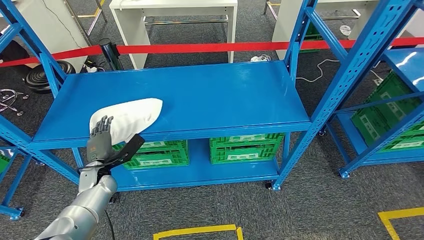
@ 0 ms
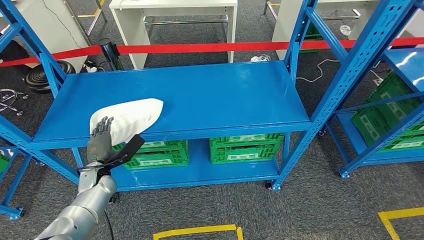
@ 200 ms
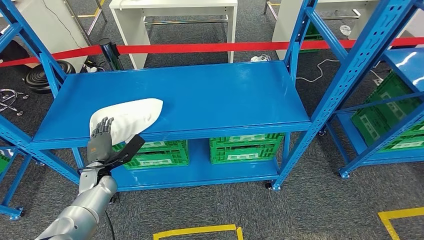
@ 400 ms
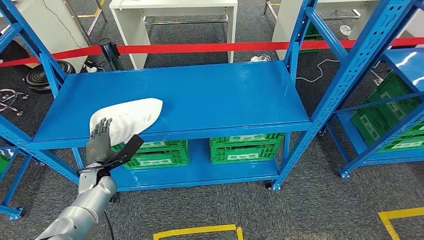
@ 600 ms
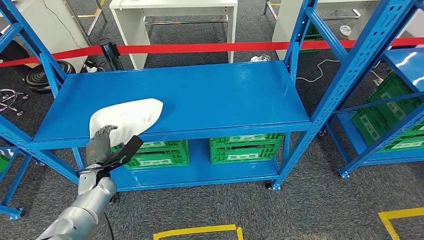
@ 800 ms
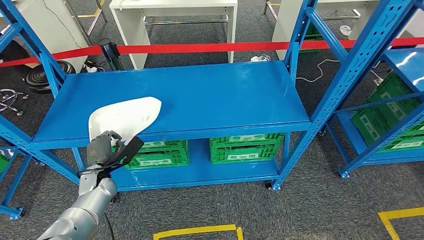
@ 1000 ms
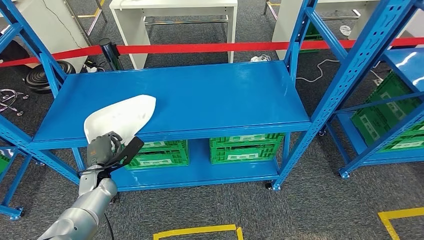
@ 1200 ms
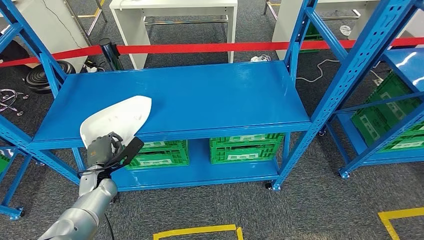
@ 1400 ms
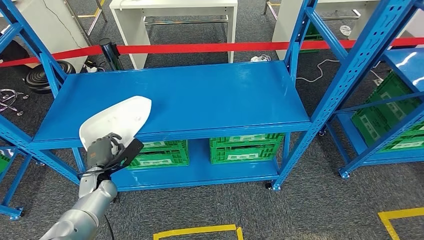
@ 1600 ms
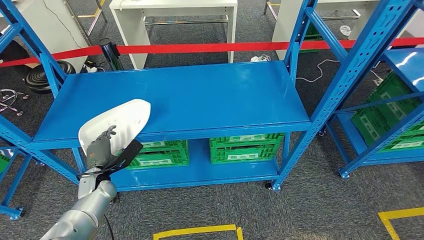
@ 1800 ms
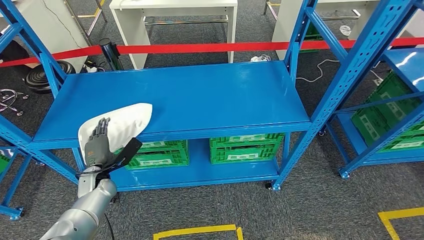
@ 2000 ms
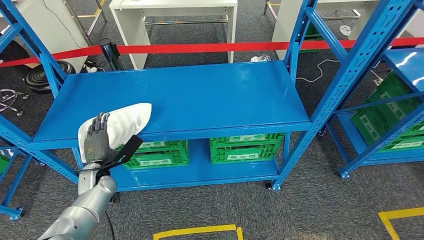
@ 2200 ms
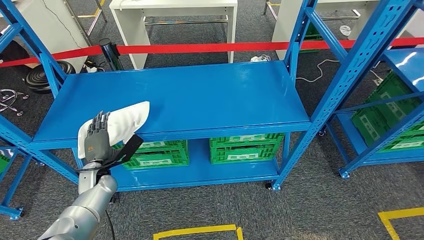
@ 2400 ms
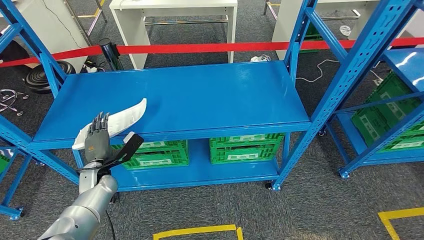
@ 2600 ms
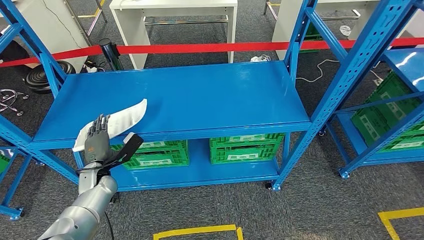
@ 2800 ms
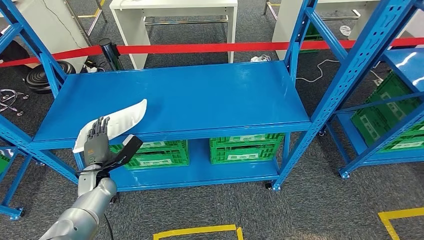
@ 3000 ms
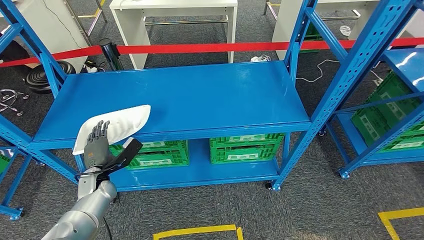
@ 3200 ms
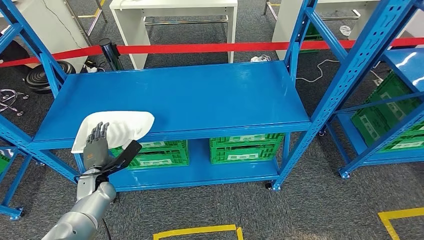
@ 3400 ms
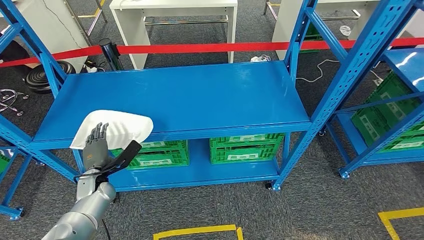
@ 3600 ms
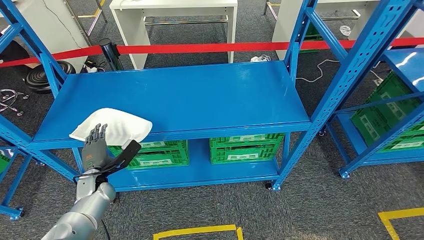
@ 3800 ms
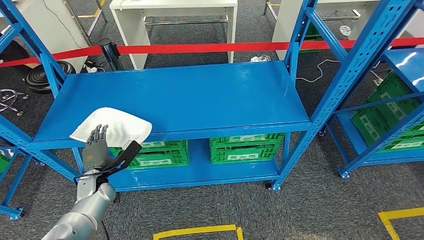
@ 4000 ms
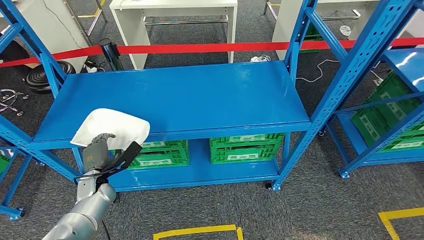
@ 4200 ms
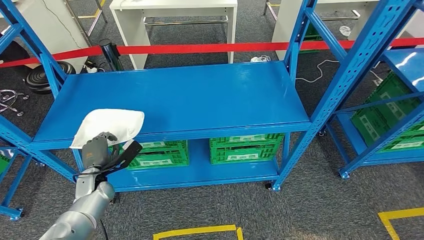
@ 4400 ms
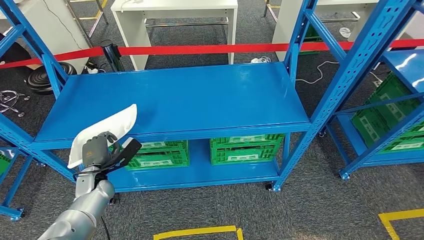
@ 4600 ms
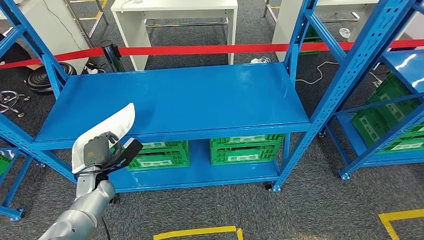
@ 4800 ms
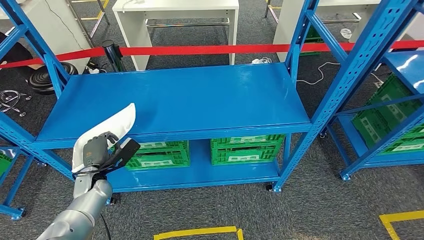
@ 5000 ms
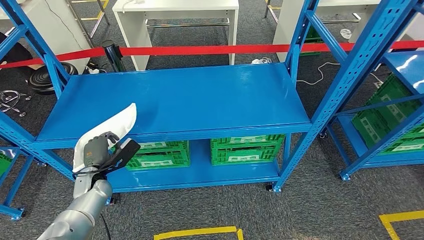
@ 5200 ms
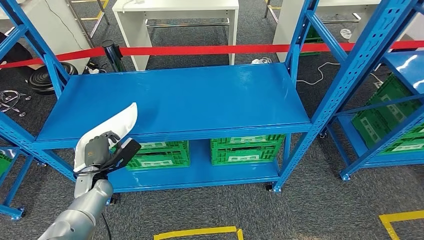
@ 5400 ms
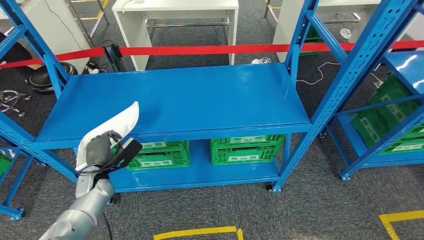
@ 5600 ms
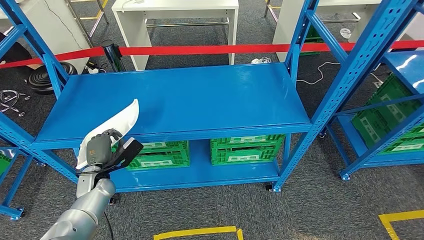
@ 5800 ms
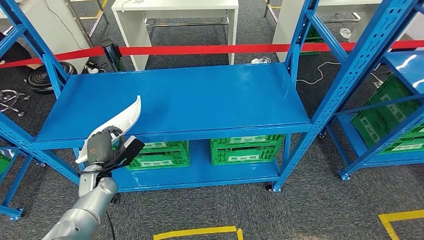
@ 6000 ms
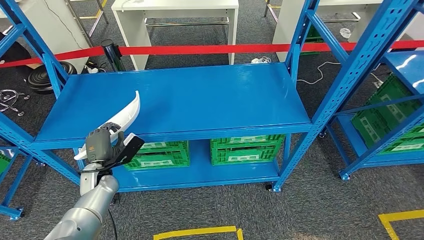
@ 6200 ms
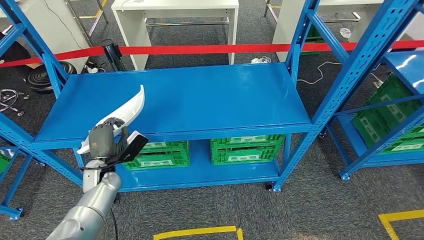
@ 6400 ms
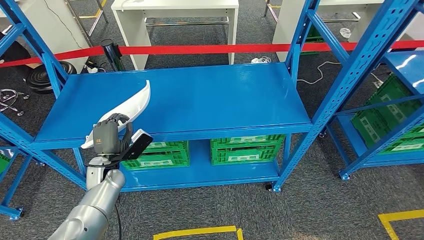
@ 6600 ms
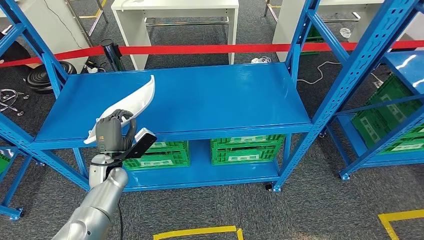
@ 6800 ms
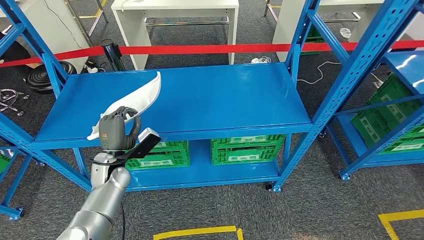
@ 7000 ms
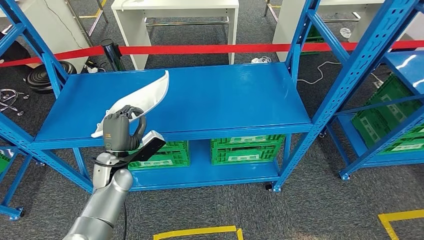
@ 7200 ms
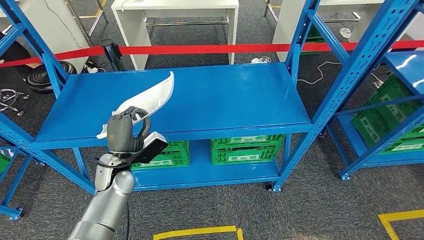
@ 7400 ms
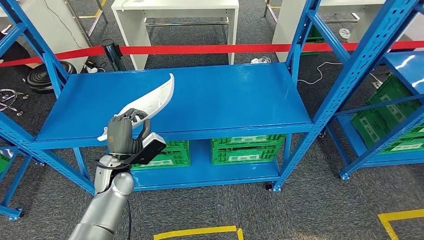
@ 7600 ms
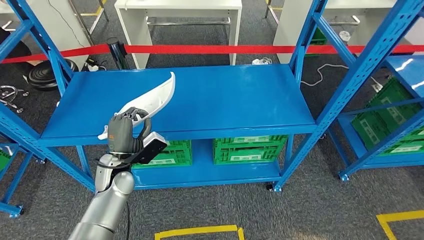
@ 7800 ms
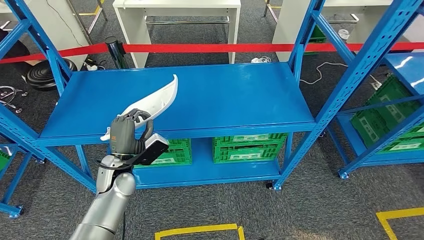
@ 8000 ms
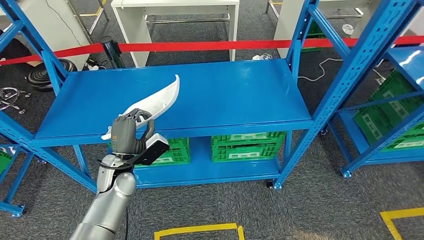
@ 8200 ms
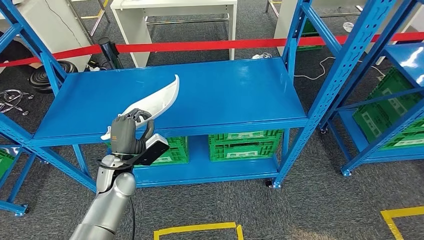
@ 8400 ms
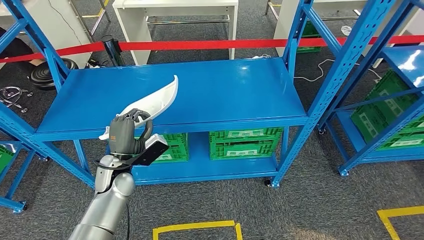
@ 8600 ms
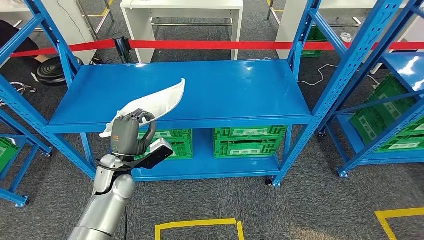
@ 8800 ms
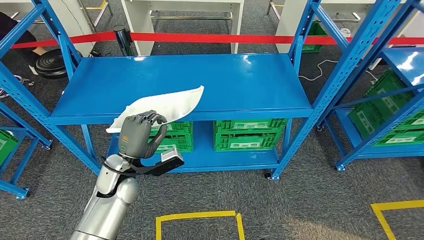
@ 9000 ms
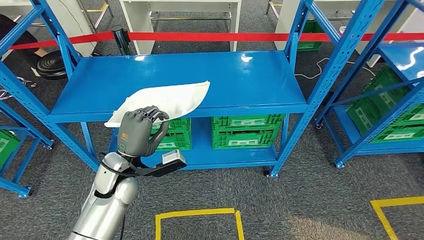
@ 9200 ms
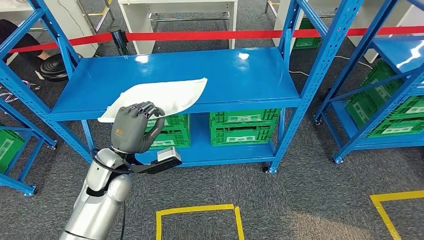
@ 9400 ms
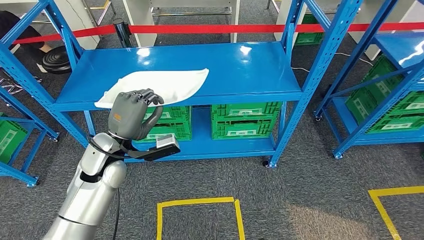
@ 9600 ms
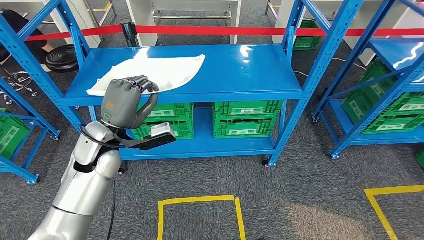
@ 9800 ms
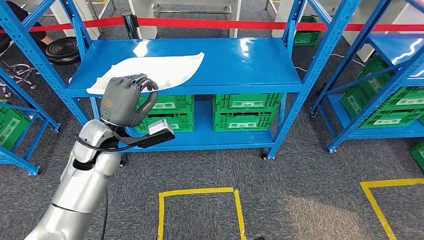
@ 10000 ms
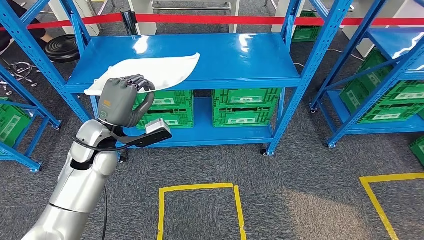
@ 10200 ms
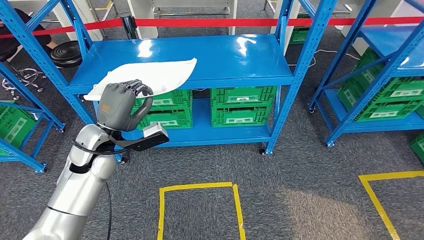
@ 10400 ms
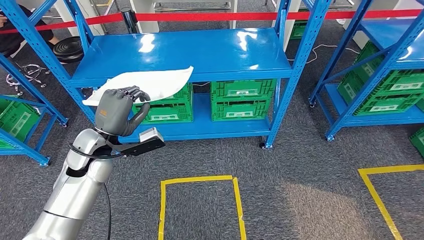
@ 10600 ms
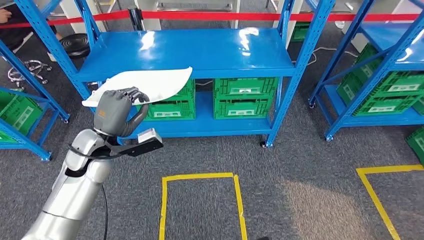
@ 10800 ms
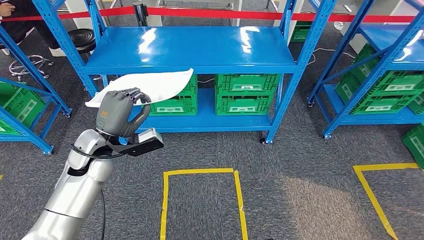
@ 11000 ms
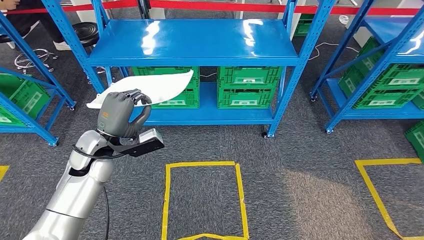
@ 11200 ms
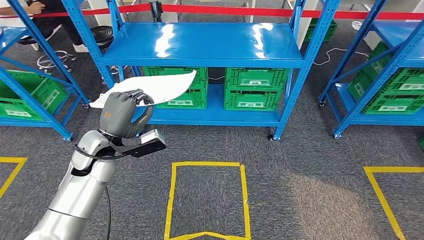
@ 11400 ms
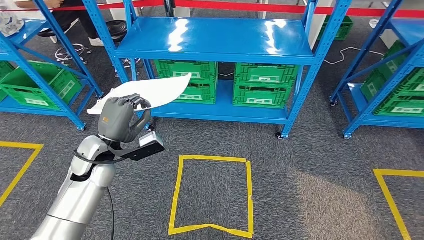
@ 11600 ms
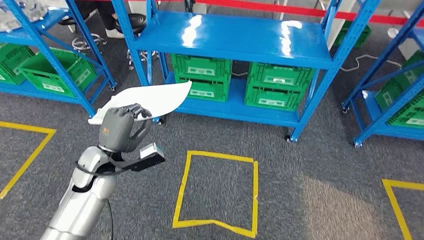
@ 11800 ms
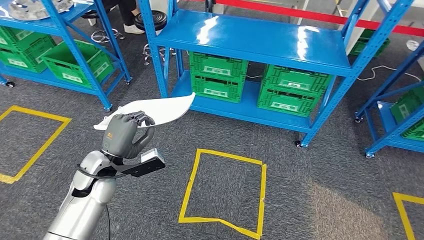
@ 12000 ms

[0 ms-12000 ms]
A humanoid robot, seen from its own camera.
Step, 0 ms to 7200 ms: Pick up the small component from the shelf.
0 ms to 6000 ms: The hands stay close to where they were, moving slightly.
6000 ms to 7600 ms: The left hand travels to the right and upward by roughly 10 cm.

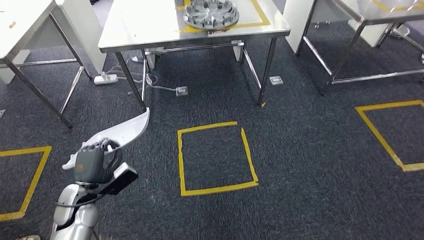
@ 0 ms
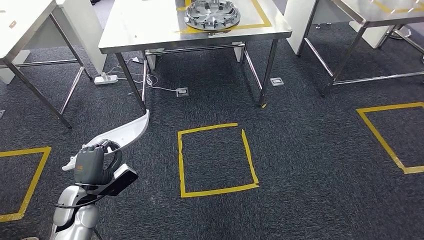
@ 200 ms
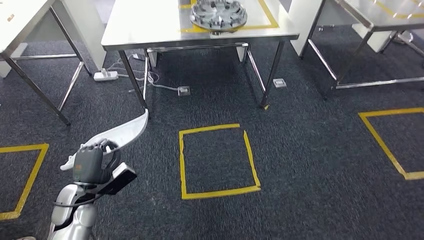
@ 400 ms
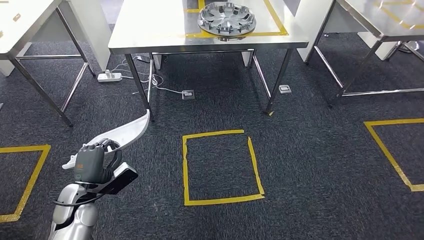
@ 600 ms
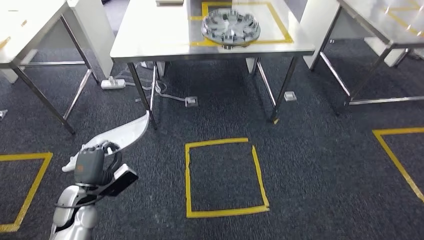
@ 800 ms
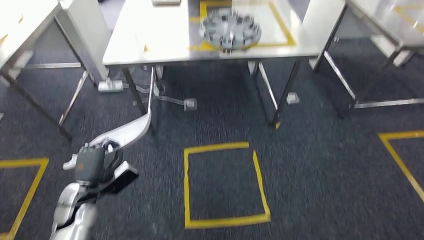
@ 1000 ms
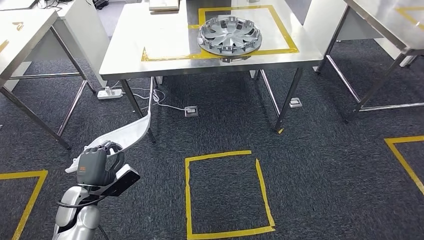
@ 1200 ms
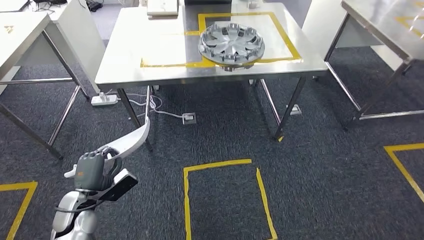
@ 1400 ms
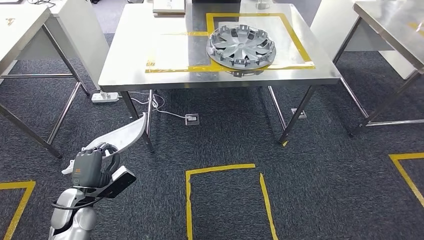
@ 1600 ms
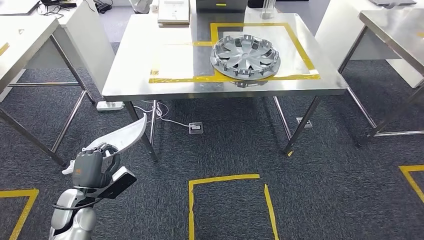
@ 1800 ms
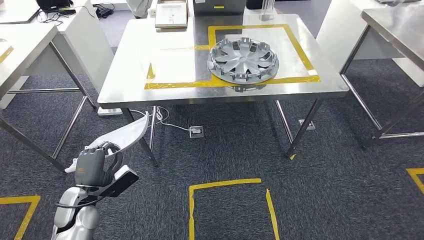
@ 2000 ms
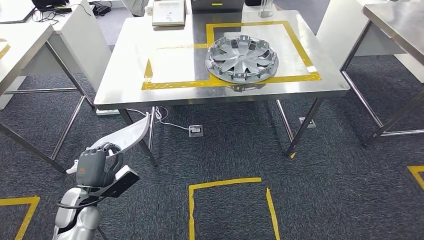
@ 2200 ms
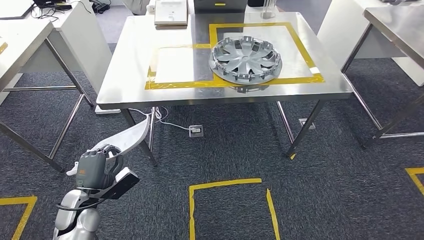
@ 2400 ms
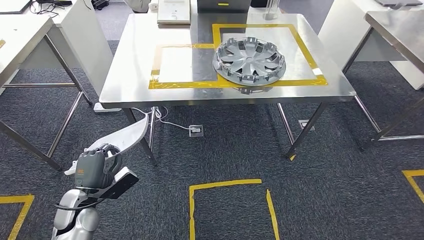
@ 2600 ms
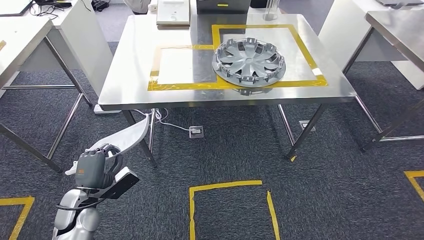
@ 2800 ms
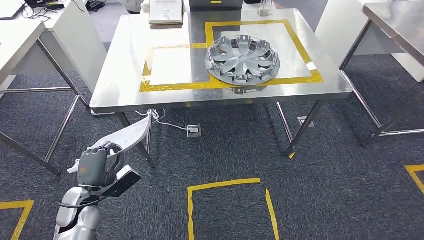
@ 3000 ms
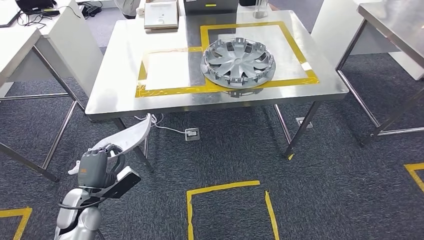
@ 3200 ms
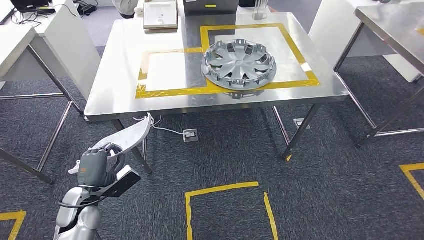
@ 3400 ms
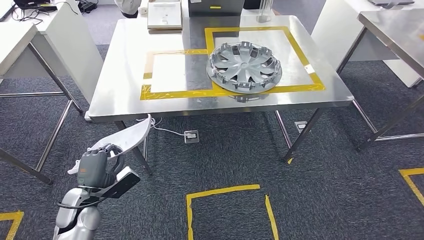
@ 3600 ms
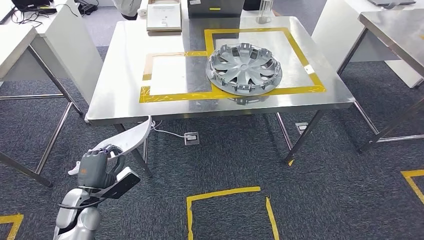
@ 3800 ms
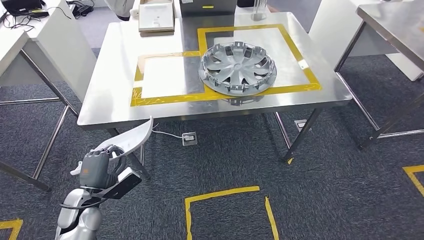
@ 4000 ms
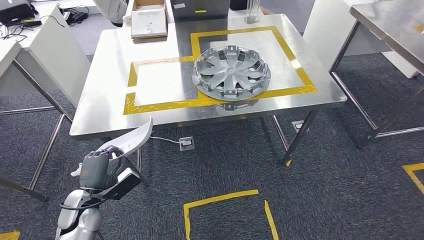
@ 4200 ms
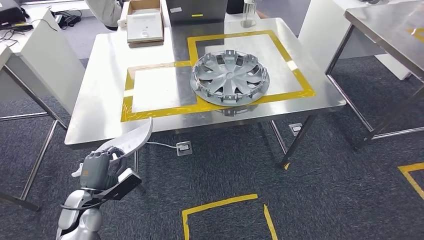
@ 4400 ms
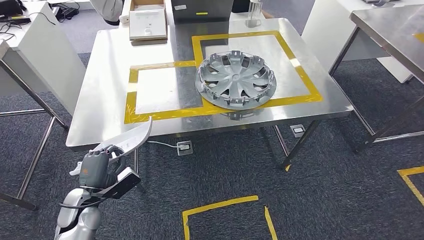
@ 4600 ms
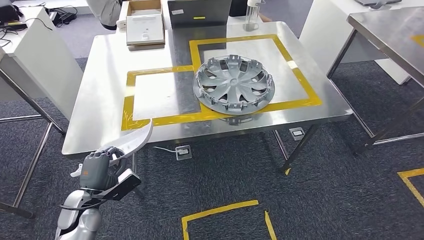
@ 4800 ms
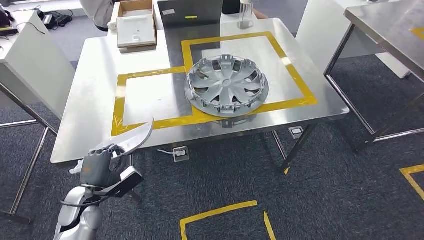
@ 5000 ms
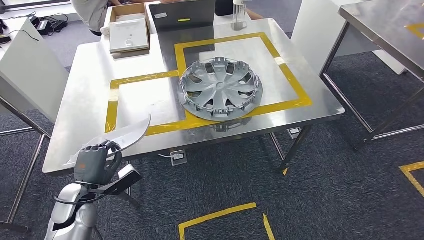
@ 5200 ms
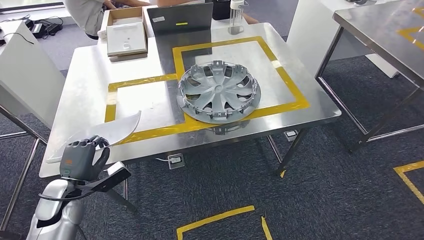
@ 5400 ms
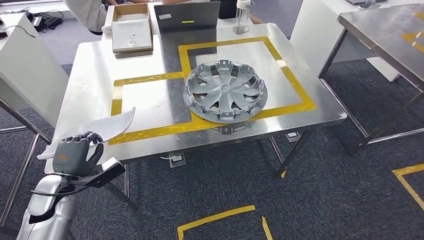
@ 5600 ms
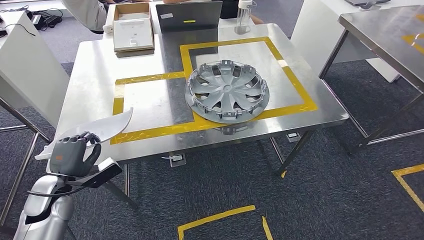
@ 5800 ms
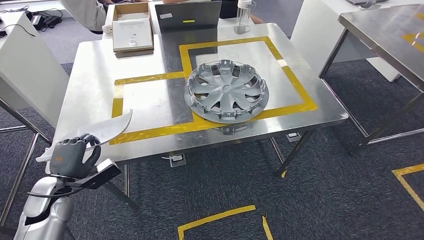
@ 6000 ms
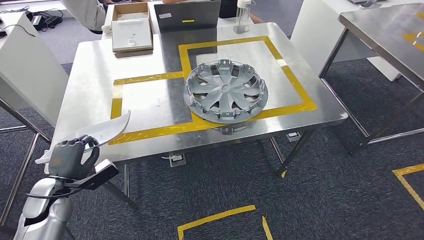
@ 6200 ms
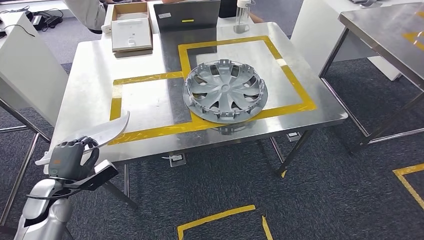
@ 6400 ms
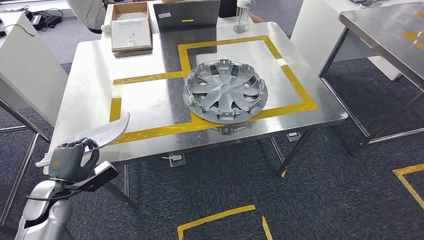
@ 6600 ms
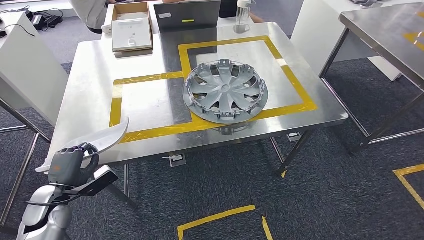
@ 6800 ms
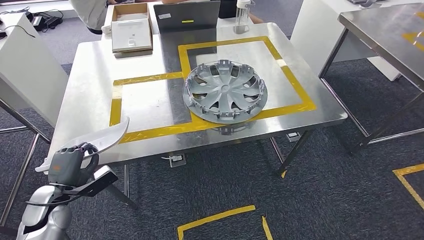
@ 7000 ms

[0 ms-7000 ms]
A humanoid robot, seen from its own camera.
Step, 0 ms to 6200 ms: Move the small component to the workbench.
5600 ms to 7000 ms: The hands stay close to where they were, moving slightly.
